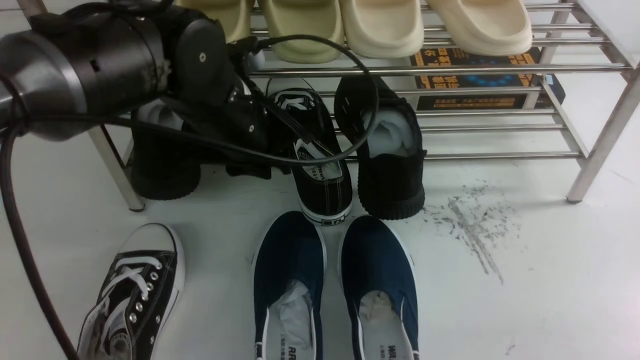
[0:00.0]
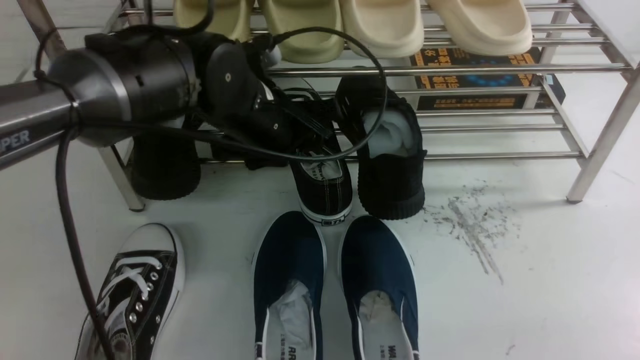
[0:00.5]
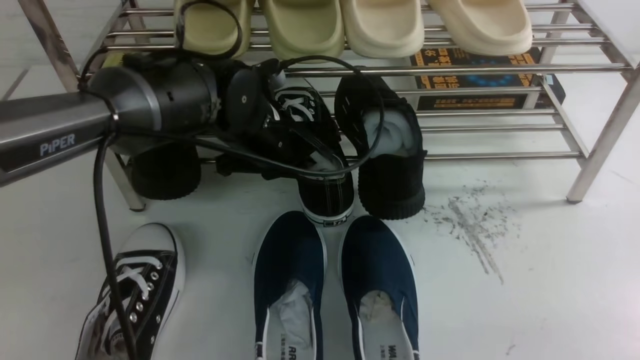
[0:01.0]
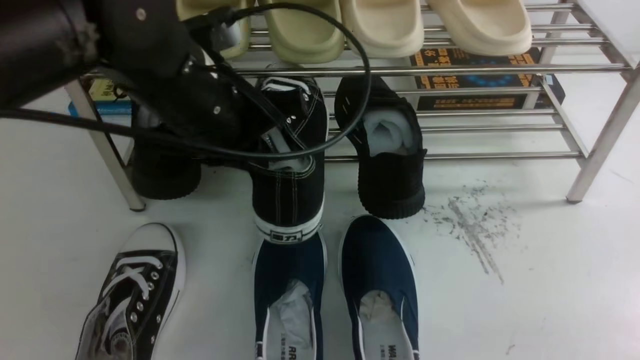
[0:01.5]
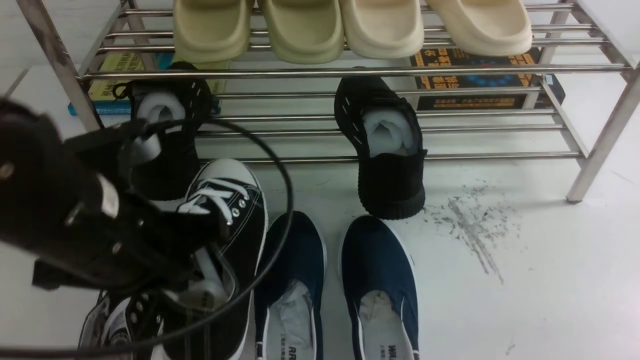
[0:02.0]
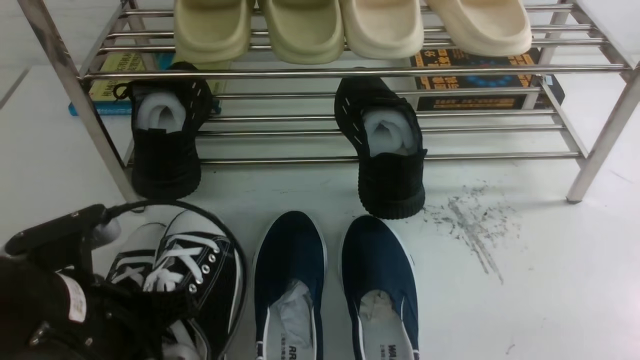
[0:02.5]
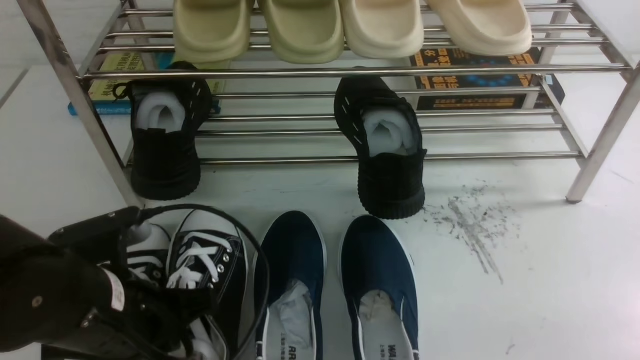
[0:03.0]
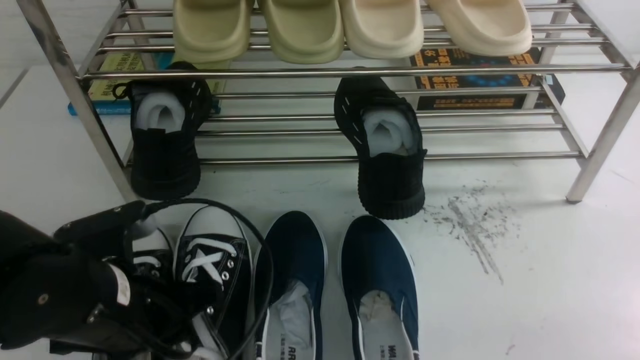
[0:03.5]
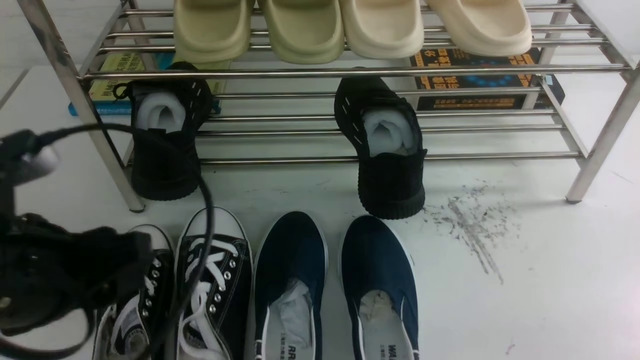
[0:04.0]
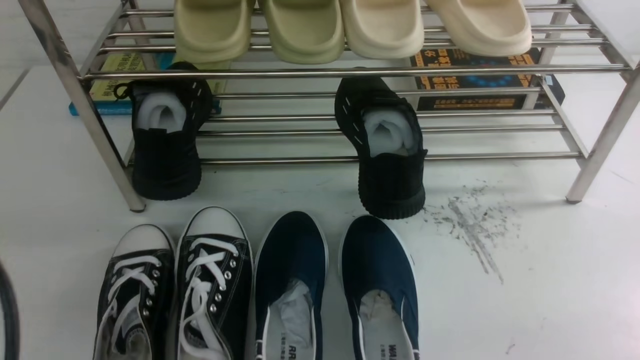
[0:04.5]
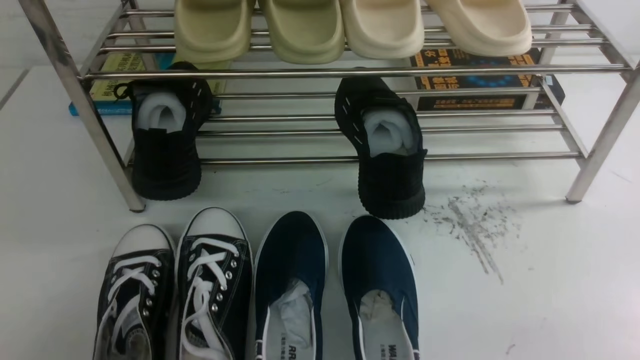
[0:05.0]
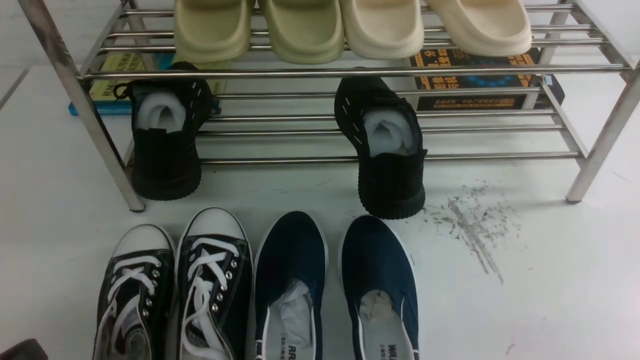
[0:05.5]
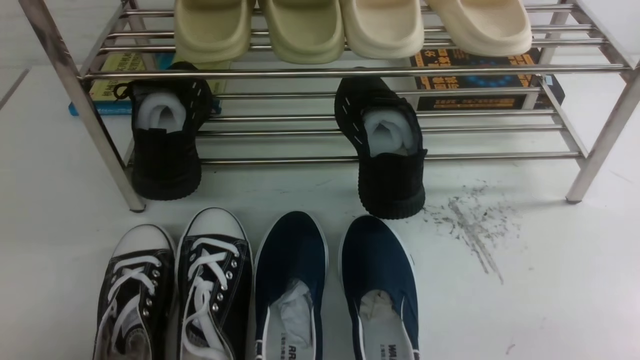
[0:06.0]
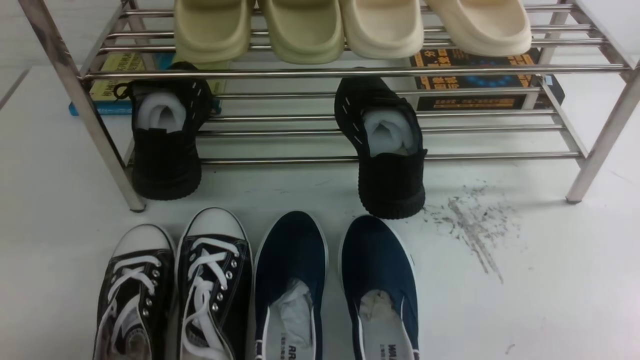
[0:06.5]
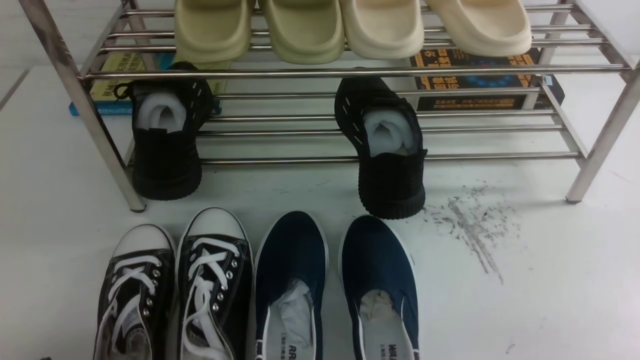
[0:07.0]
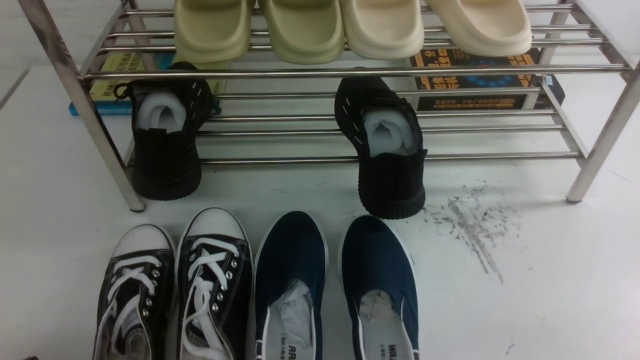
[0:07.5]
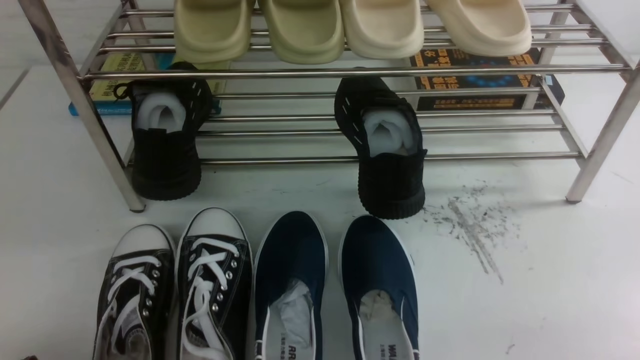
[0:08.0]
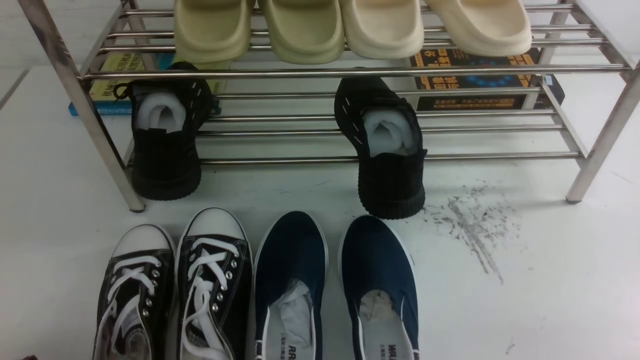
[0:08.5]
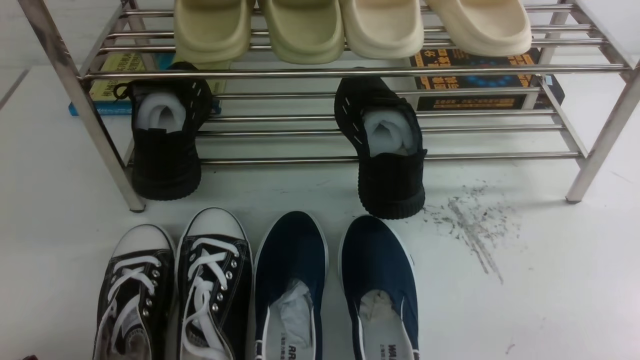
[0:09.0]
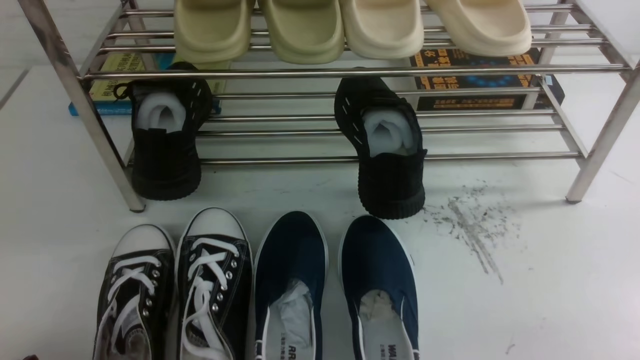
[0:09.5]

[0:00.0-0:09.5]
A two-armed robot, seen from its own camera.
Step, 0:01.5 to 0:03.5: Use your left arm to remove the clamped shoe from the shoe rack and put it down.
0:00.0 to 0:02.0: The left gripper goes some 15 cm backward and to the left, and closes up.
0:02.0 to 0:04.0: The left gripper goes about 5 cm backward, moves about 10 cm downward and comes back, and opens up.
0:04.0 to 0:05.5: The left gripper shifts about 15 cm backward, downward and to the left, and closes up.
0:07.5 to 0:09.5: The two grippers keep their place.

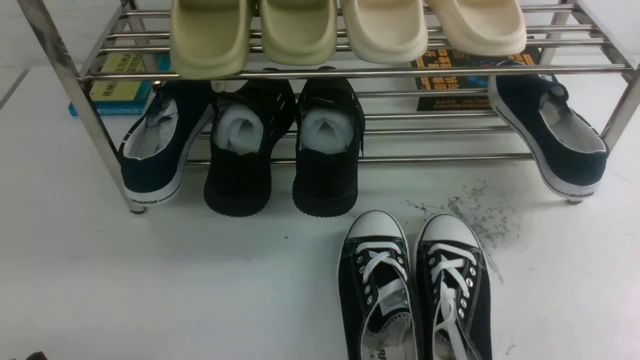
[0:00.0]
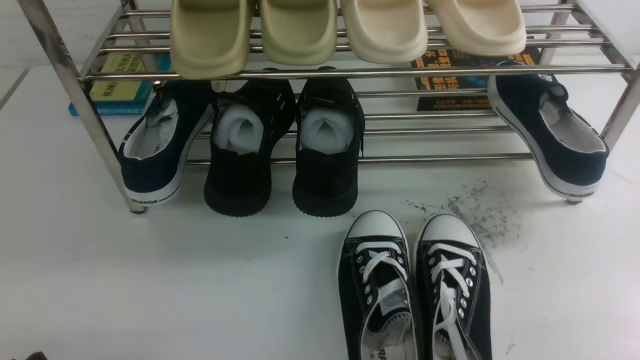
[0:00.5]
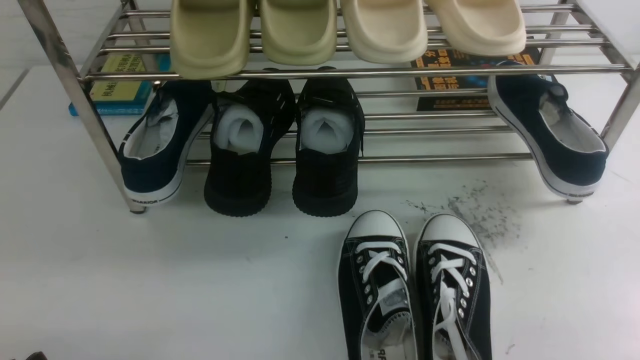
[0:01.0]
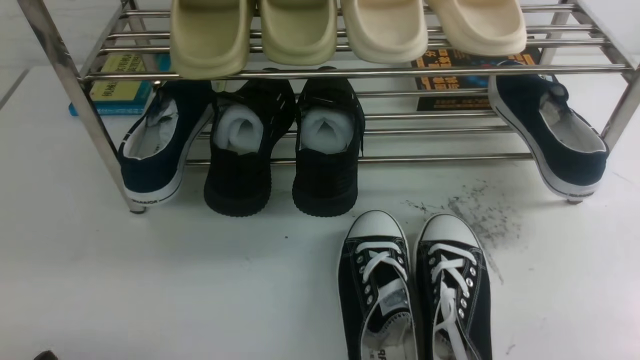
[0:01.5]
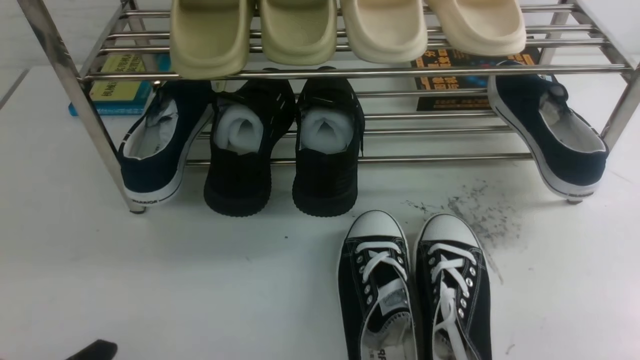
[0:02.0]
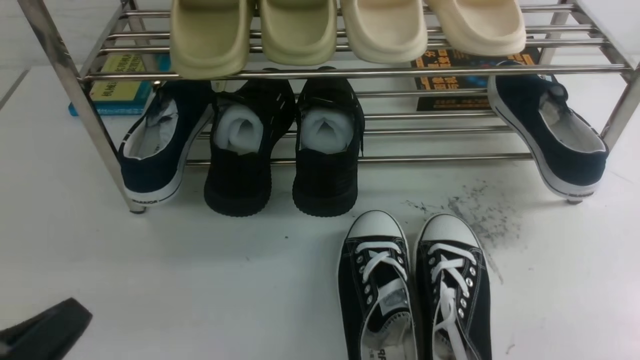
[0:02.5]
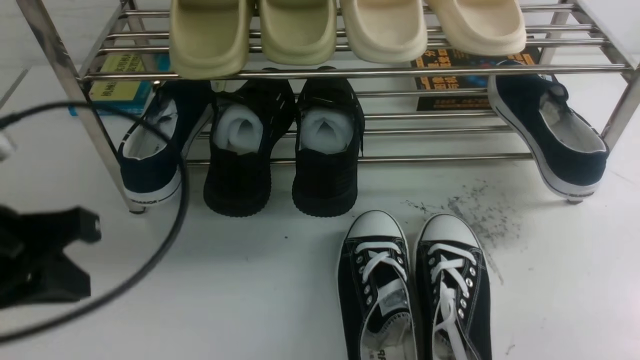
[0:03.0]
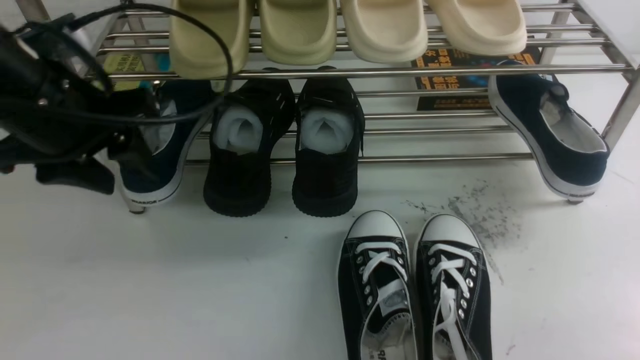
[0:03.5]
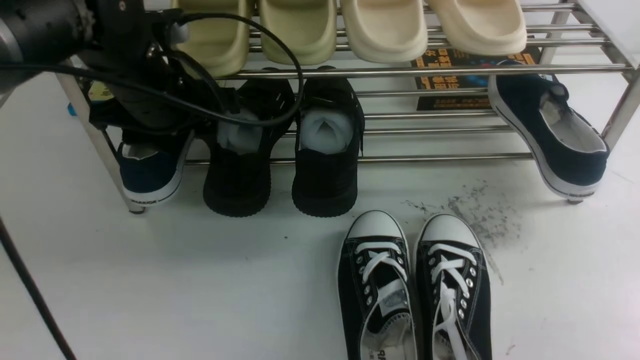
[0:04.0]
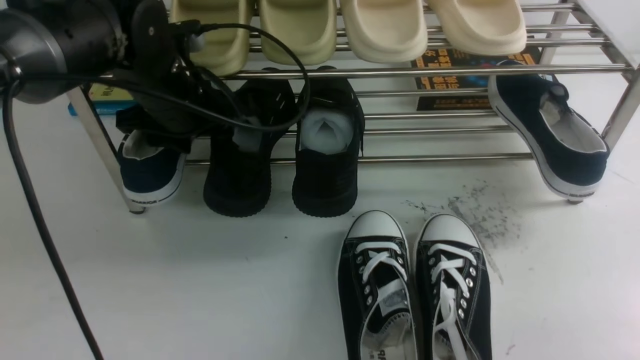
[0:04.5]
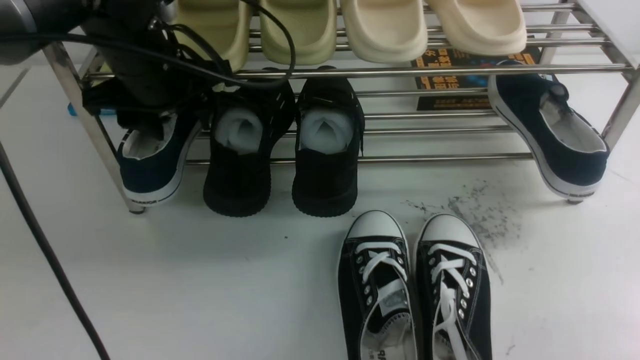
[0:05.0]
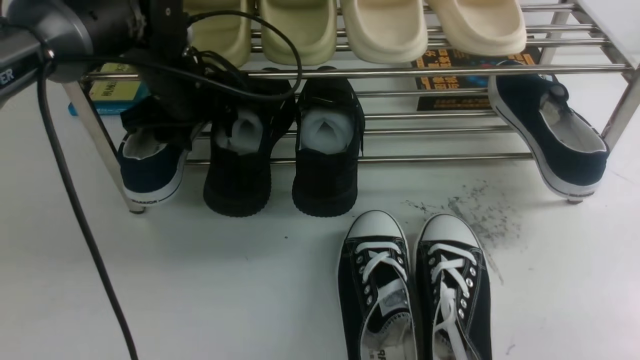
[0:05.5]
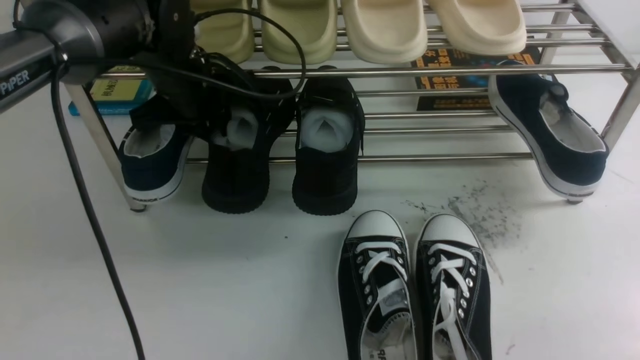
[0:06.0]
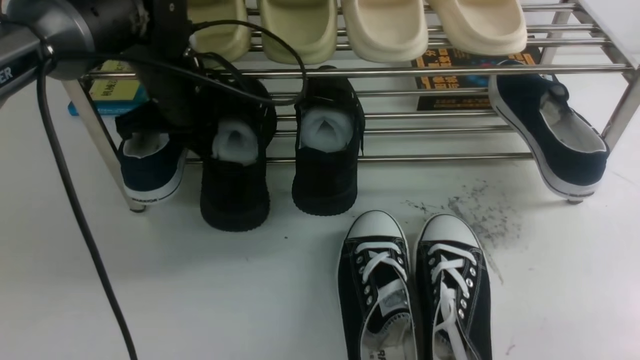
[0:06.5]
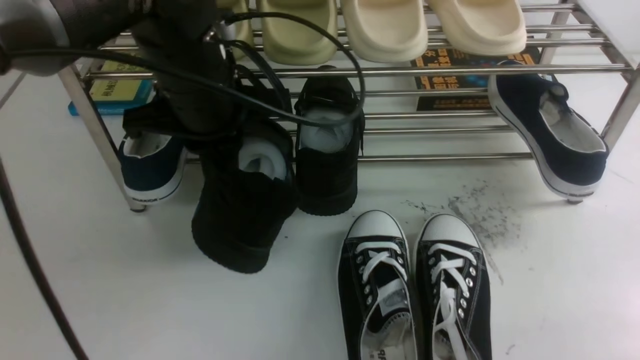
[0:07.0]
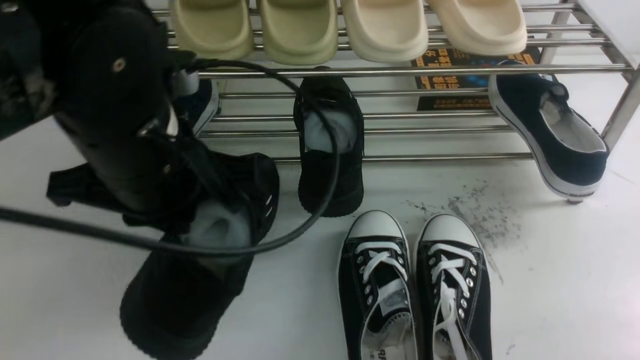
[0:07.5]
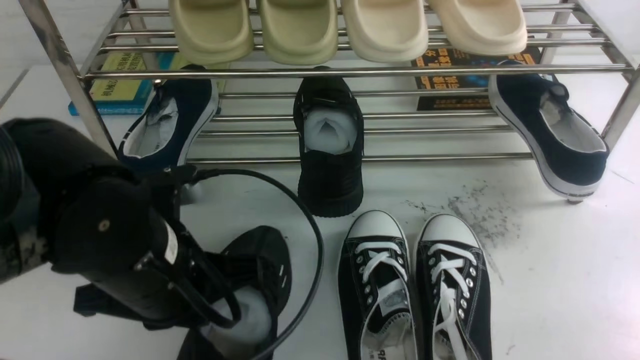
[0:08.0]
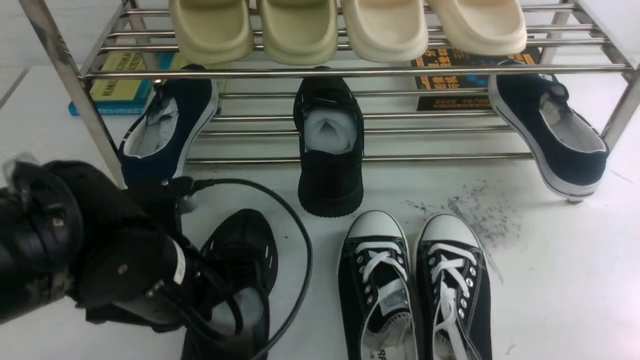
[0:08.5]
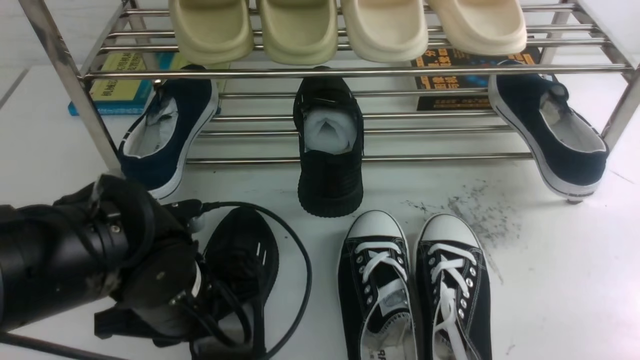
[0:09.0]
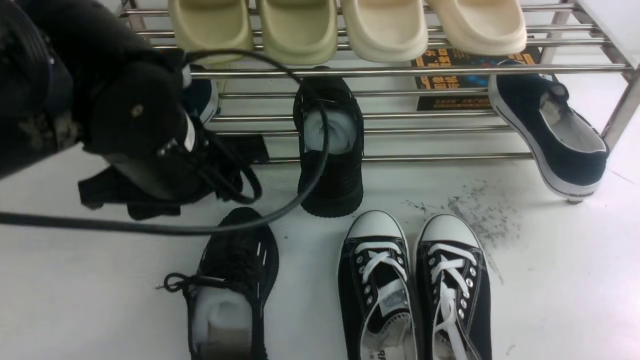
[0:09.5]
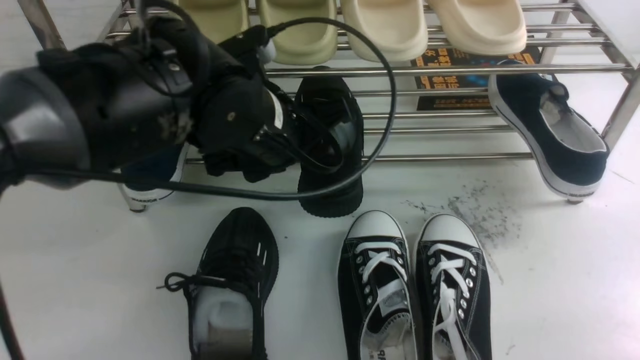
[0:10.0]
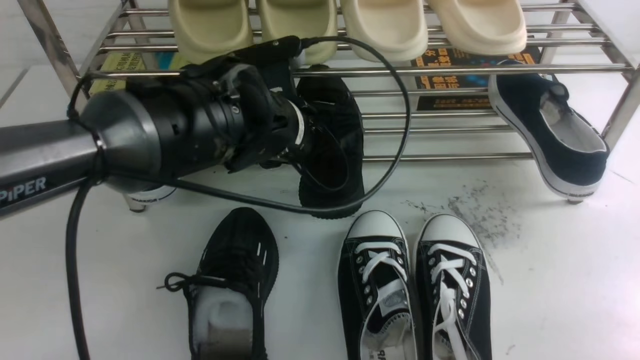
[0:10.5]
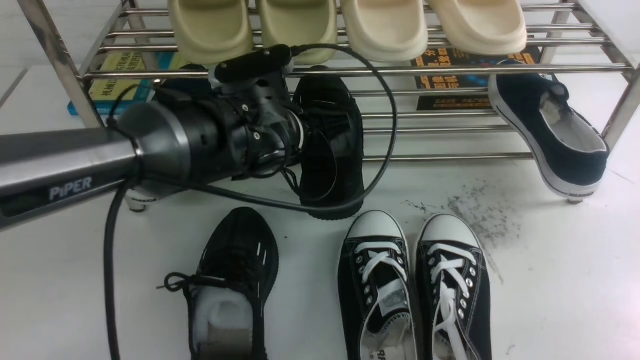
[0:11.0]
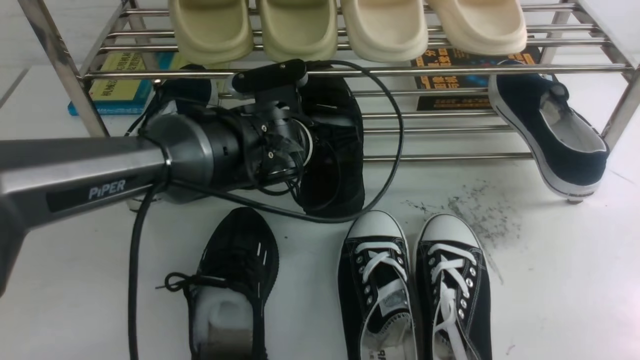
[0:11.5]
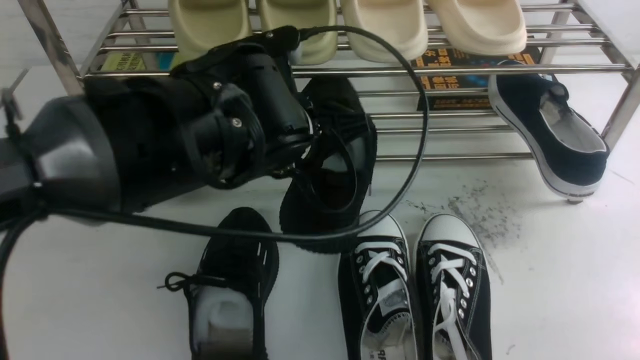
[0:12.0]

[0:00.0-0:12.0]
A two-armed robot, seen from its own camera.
Step, 0:00.0 to 0:07.0: use the left arm to clamp a shoe on the left side of the shoe rack.
Step, 0:07.5 to 0:09.0: Use your left arm to remove the clamped shoe from the shoe rack and put it down.
Step, 0:09.5 to 0:11.5: use the left arm to clamp a shoe in the middle of the shoe rack.
0:02.0 to 0:04.0: The right gripper opens its fingers. Meanwhile the left gripper goes about 35 cm forward and upward, and opens up.
0:04.0 to 0:06.0: The left gripper is displaced forward by some 5 cm, and closes.
0:06.0 to 0:08.0: The left gripper moves backward, roughly 20 cm.
0:08.0 to 0:10.0: The left gripper is displaced forward and to the right by some 15 cm, reaches some 5 cm downward, then returns, and opens.
0:10.0 to 0:12.0: The left gripper closes its fingers.
